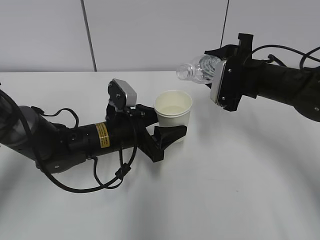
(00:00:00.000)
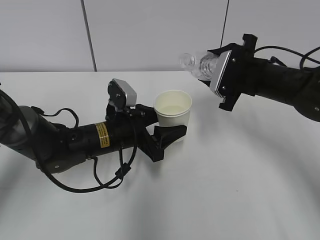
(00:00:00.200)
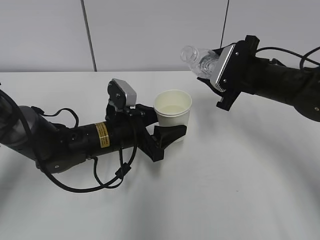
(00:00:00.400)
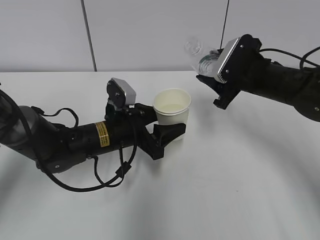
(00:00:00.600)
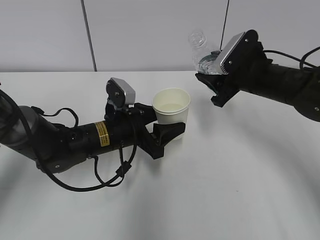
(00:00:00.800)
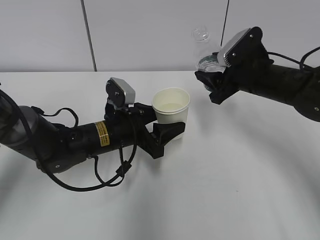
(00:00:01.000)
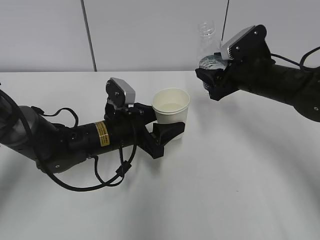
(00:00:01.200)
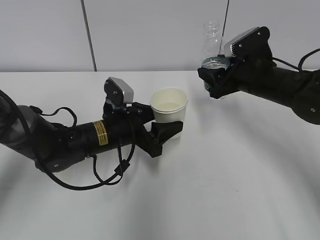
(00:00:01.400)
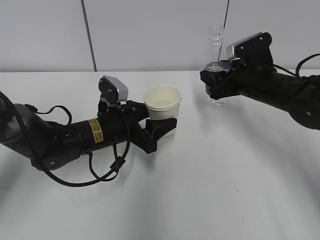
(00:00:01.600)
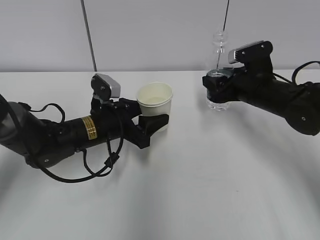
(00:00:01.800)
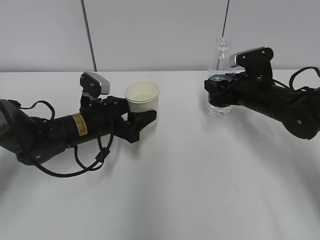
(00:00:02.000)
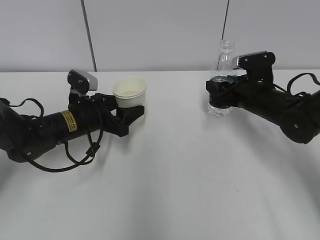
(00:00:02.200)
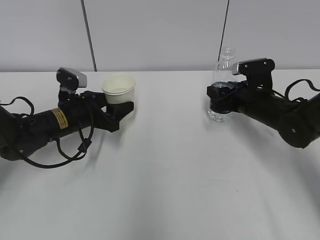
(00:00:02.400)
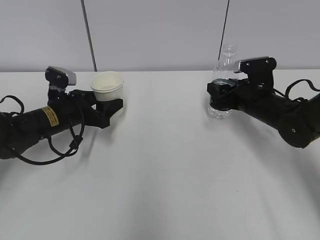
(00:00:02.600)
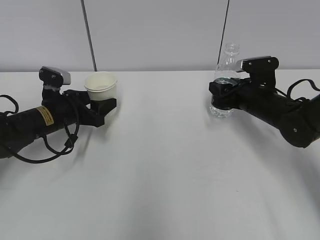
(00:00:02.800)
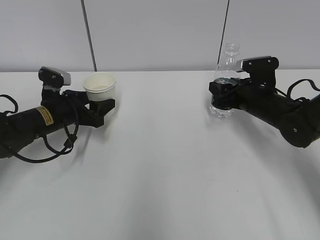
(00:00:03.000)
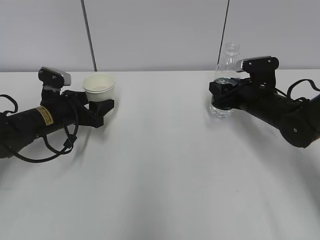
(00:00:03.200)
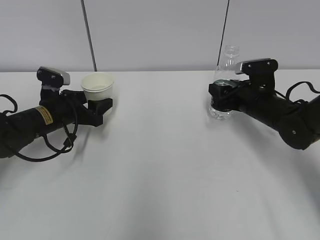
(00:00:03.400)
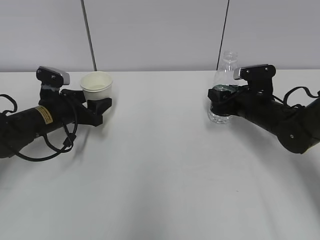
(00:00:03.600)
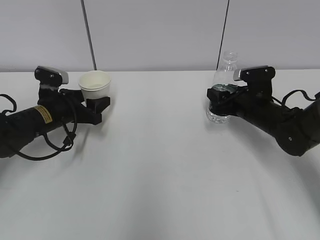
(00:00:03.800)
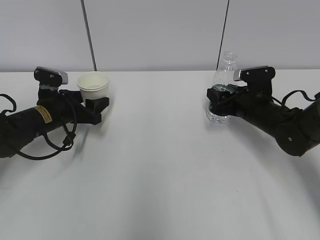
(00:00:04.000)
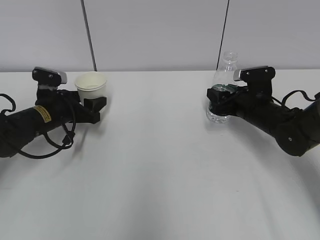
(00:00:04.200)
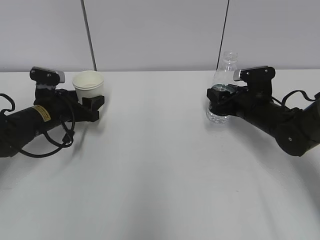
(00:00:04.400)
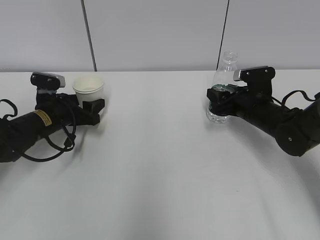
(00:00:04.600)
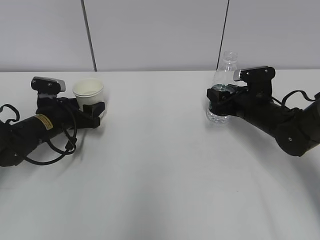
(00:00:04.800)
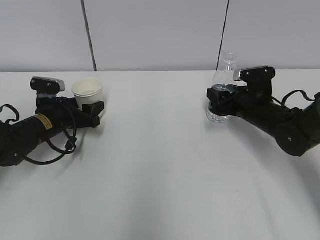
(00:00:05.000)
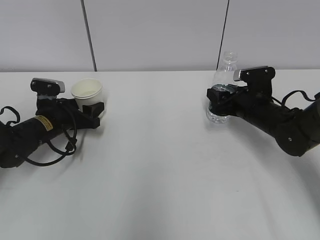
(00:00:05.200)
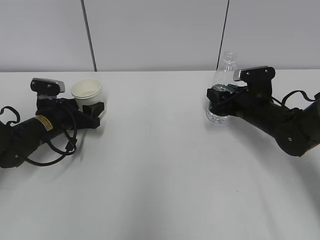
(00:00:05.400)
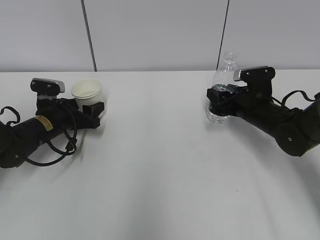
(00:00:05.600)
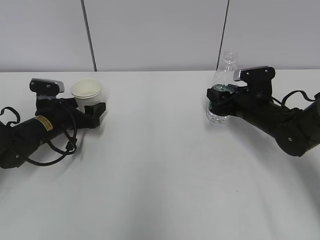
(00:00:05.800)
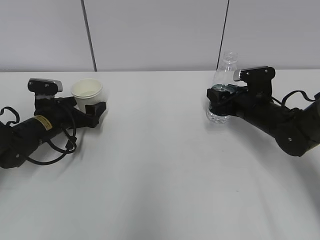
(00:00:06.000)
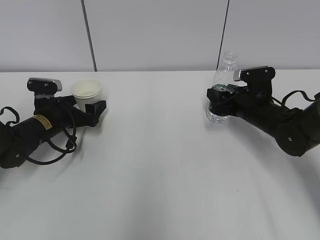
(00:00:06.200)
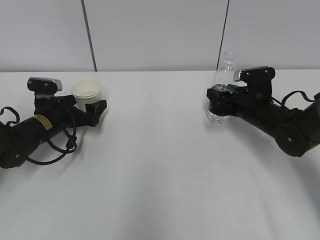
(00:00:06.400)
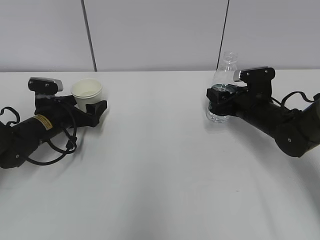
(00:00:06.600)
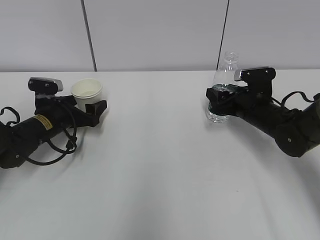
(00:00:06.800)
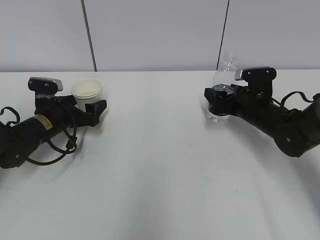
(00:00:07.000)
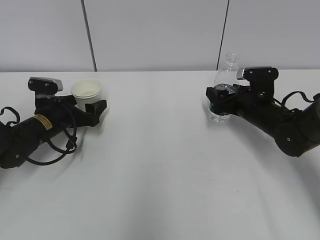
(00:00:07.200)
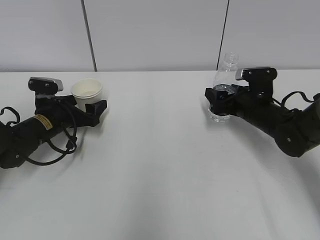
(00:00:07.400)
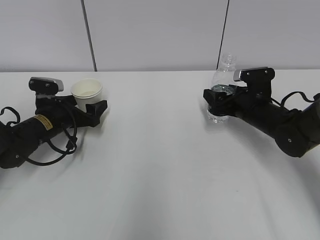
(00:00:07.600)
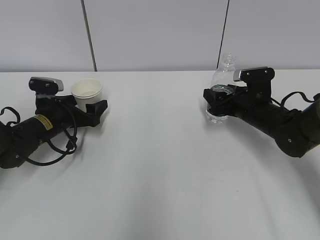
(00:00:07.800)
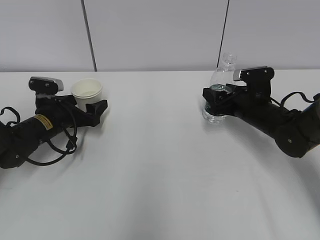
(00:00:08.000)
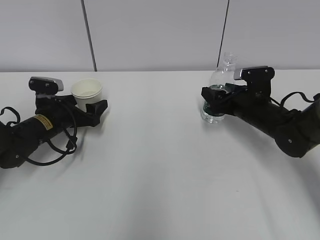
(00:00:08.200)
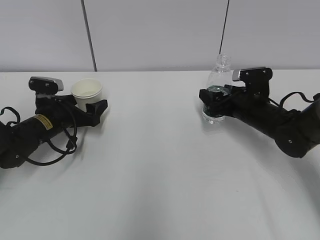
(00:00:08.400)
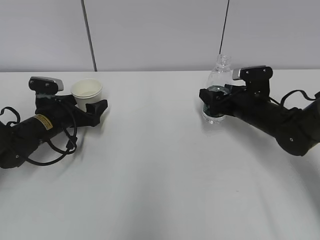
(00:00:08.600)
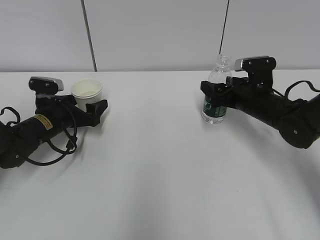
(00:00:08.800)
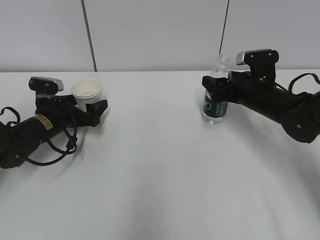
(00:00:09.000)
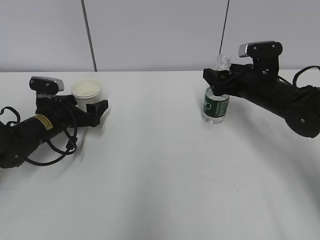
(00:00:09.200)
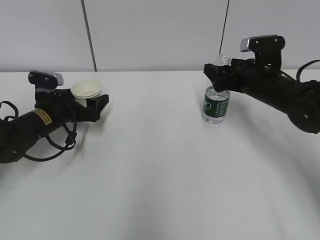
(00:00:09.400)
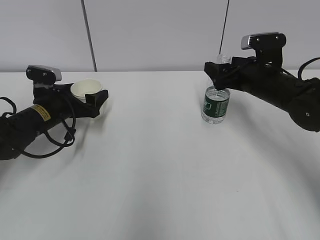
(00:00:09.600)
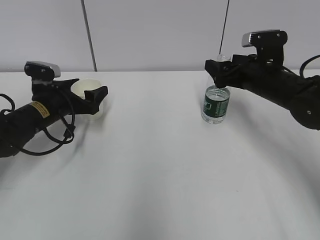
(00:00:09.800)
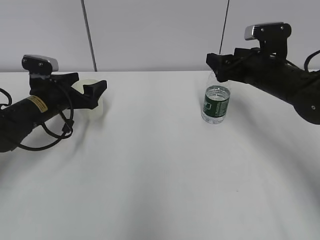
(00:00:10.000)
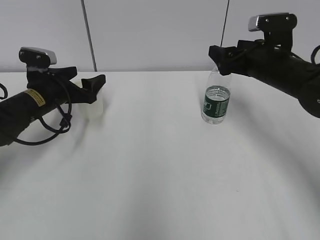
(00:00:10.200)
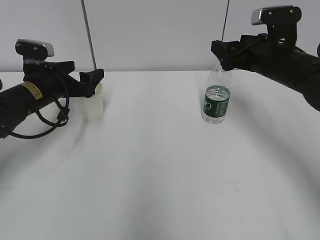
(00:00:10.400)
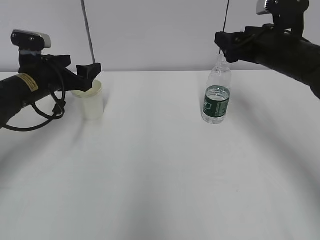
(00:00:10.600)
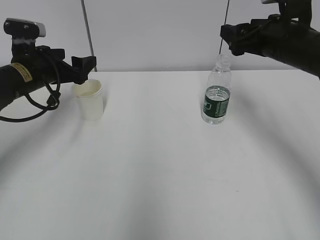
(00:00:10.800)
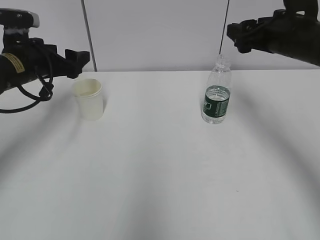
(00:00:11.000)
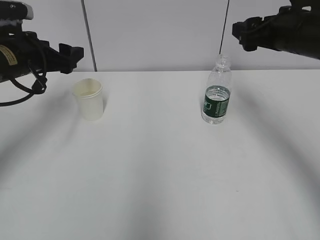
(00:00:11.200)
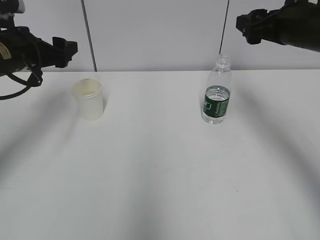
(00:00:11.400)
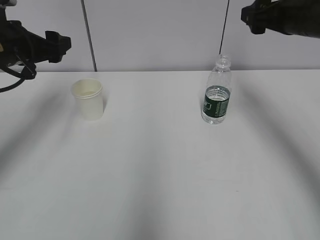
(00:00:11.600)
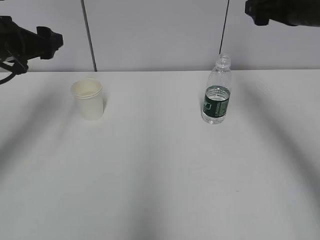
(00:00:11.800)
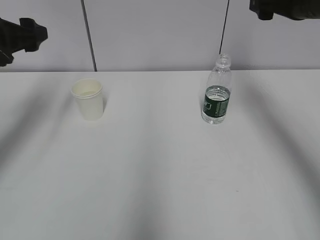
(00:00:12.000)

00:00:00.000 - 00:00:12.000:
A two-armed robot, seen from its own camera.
Step, 00:00:00.800 - 00:00:02.800: Place the water bottle with the right hand.
00:00:01.600 - 00:00:03.000: The left gripper goes some 15 cm to the left and forward. Meanwhile the right gripper heads downward, covering some 5 cm.
00:00:03.000 - 00:00:04.400: The grippers stay close to where they were, moving slightly.
00:00:04.400 - 00:00:06.000: The left gripper opens its fingers.
00:00:06.000 - 00:00:07.600: The right gripper opens its fingers.
00:00:07.600 - 00:00:09.000: The right gripper closes, then reopens.
00:00:09.000 - 00:00:10.400: Both grippers travel together upward, approximately 10 cm.
00:00:10.400 - 00:00:12.000: The two grippers go some 10 cm upward.

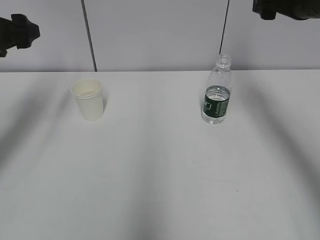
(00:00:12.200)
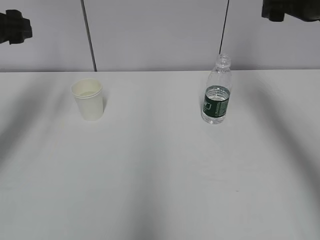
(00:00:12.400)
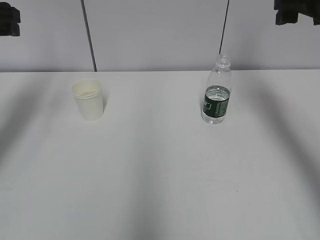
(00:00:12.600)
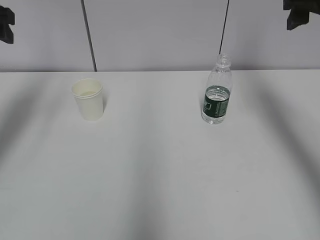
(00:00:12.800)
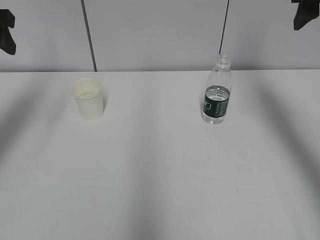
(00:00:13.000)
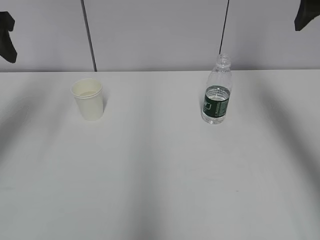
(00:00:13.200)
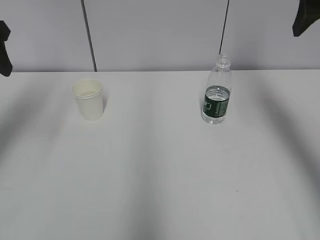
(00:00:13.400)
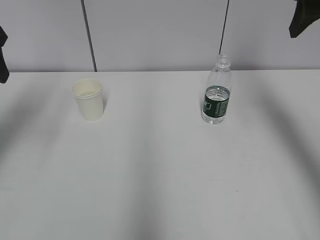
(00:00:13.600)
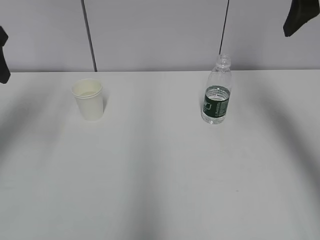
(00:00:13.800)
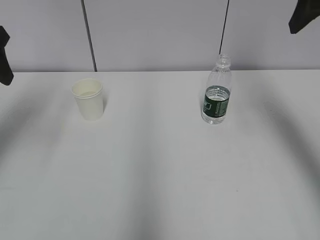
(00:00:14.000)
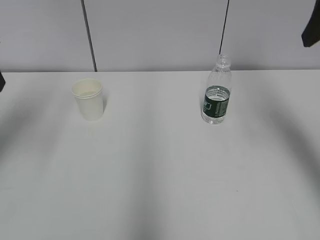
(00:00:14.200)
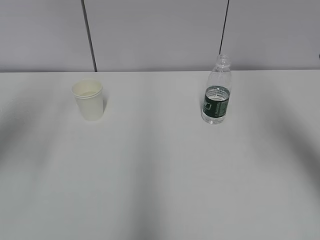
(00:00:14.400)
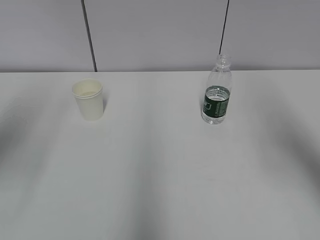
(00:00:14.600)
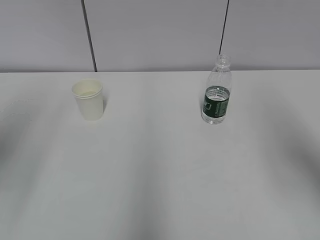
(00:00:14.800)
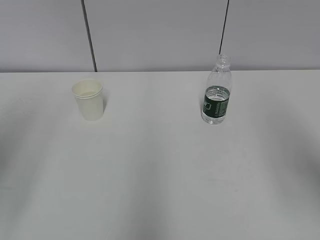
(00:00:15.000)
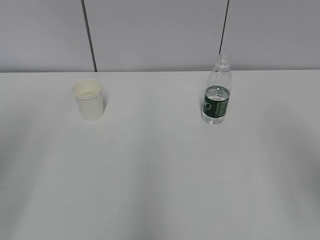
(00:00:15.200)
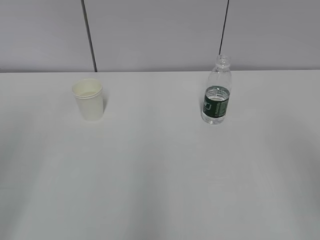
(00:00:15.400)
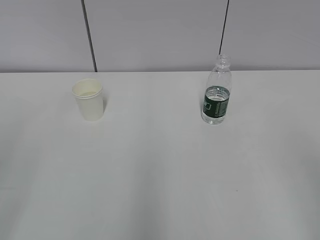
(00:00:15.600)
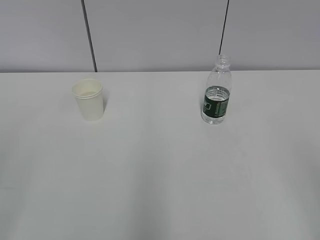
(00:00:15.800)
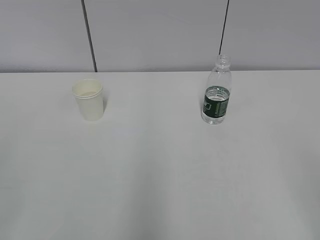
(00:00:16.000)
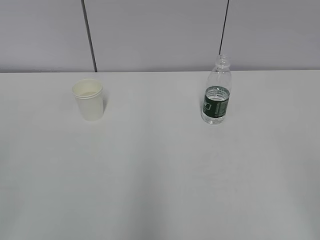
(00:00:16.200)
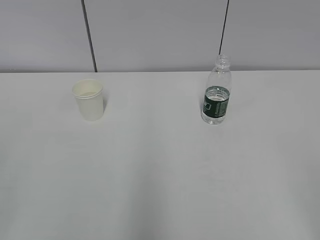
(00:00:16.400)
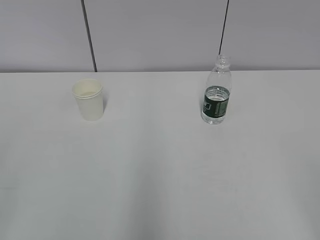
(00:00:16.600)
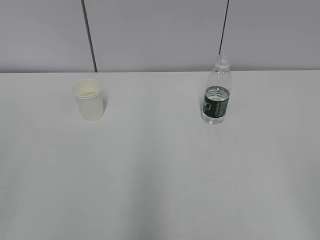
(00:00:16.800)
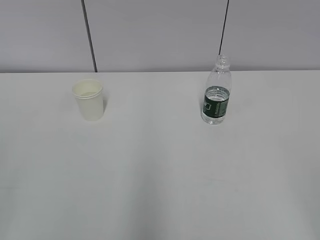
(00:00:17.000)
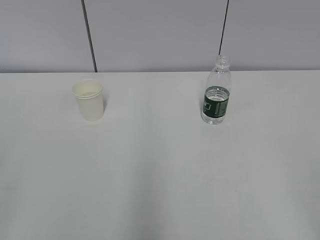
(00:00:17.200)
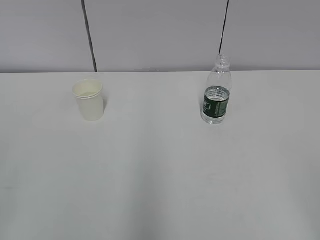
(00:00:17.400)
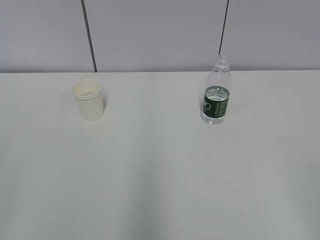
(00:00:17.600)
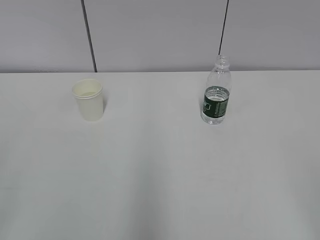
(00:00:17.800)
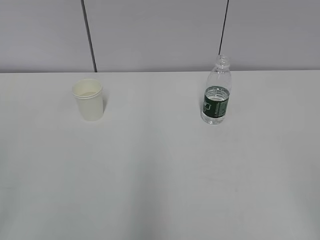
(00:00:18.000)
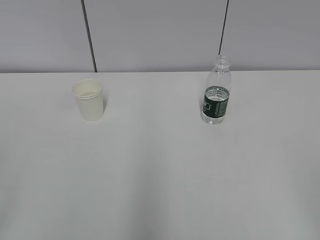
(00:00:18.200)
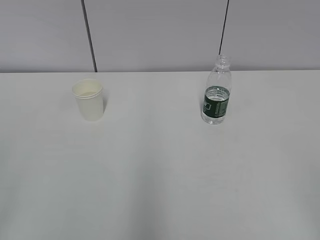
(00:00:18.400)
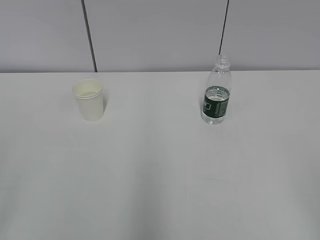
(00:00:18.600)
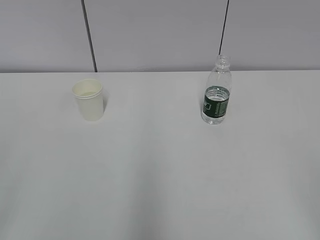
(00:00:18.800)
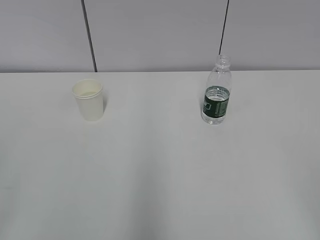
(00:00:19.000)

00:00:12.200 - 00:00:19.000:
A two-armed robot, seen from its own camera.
00:00:12.200 - 00:00:13.600: The grippers both shift upward by roughly 5 cm.
00:00:13.600 - 00:00:15.000: The two grippers go approximately 15 cm backward.
00:00:15.000 - 00:00:16.200: The right gripper goes roughly 15 cm backward and downward; the left gripper heads backward, covering roughly 15 cm.
00:00:17.600 - 00:00:19.000: The two grippers keep their place.
